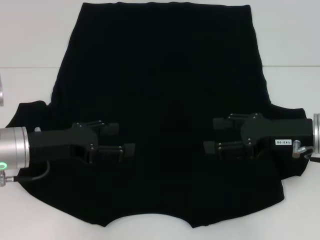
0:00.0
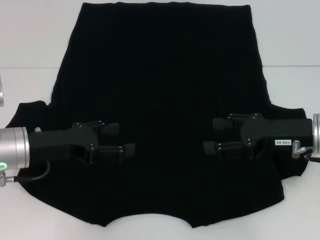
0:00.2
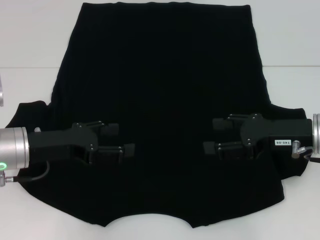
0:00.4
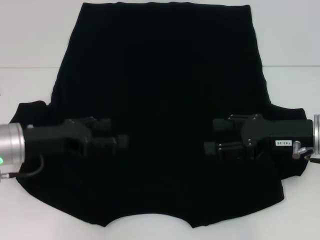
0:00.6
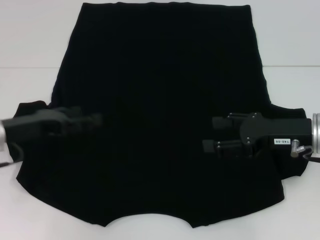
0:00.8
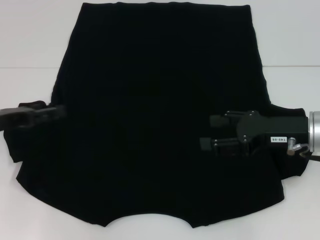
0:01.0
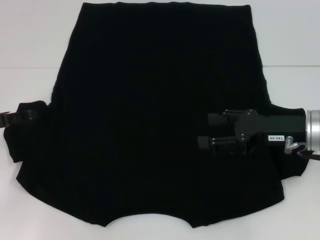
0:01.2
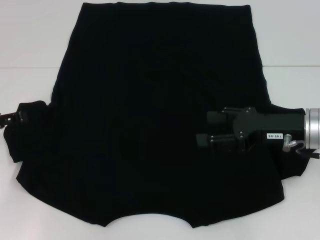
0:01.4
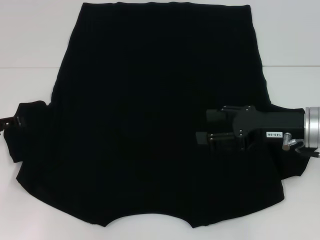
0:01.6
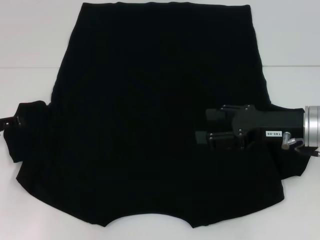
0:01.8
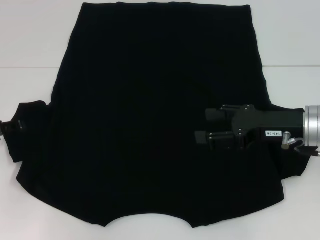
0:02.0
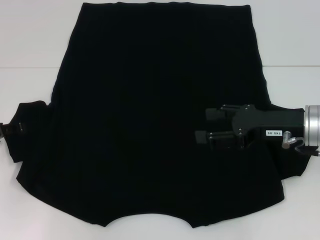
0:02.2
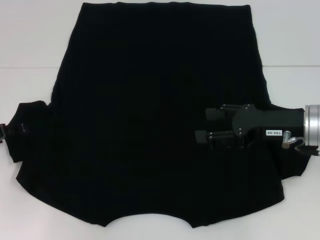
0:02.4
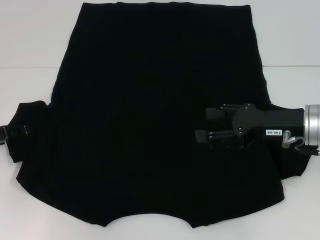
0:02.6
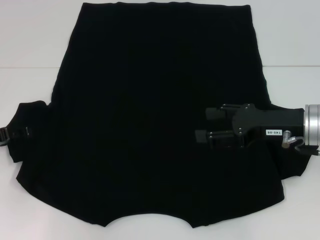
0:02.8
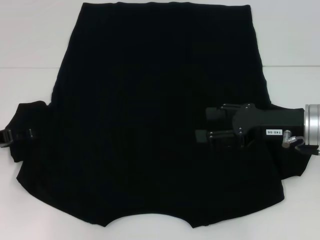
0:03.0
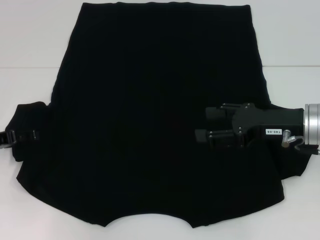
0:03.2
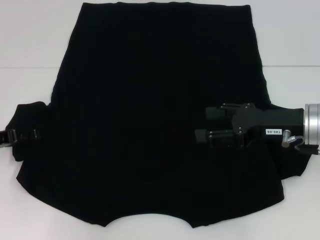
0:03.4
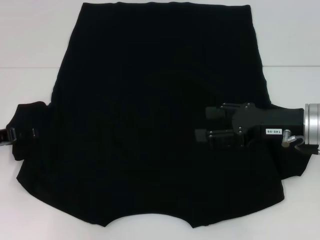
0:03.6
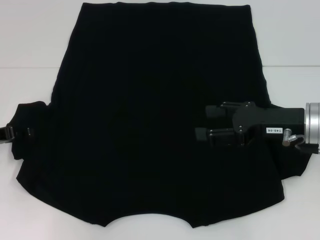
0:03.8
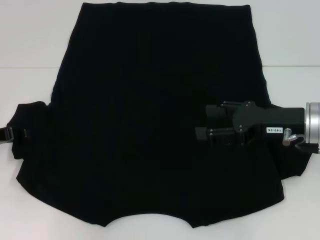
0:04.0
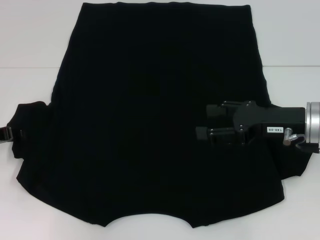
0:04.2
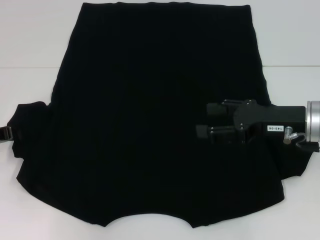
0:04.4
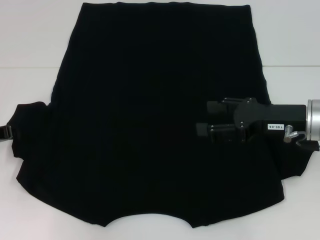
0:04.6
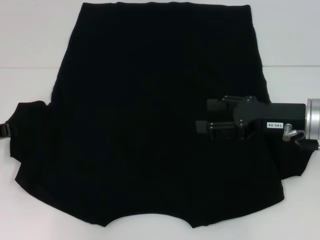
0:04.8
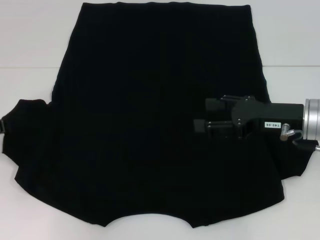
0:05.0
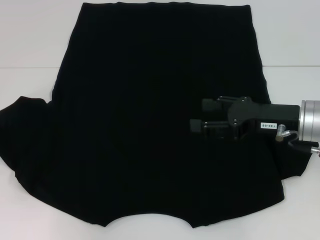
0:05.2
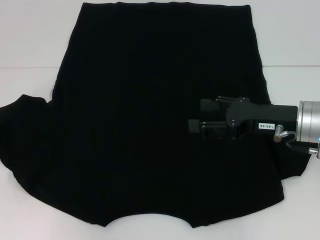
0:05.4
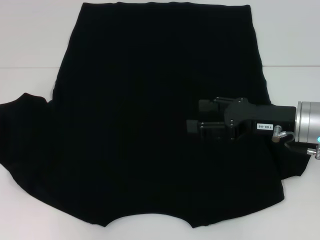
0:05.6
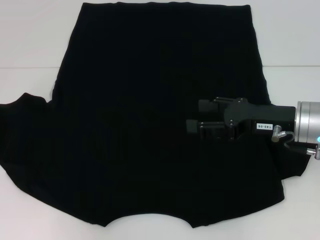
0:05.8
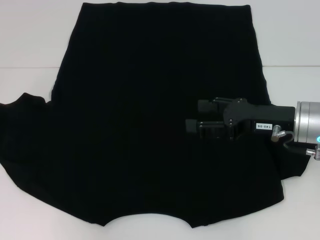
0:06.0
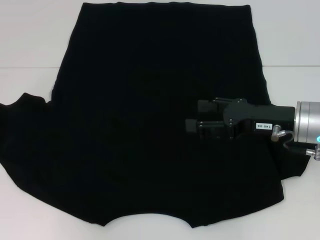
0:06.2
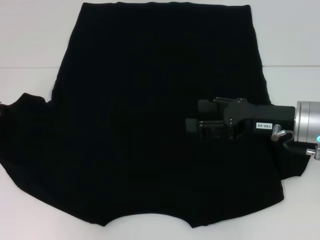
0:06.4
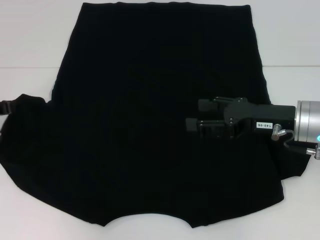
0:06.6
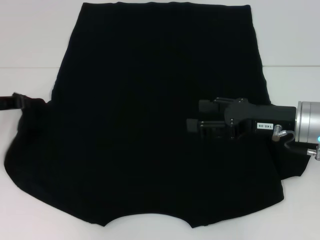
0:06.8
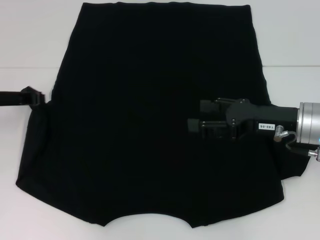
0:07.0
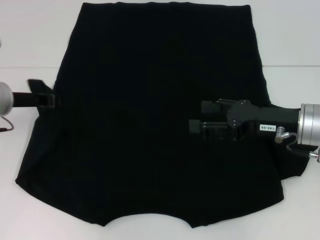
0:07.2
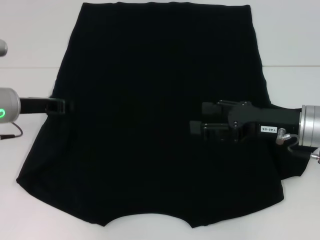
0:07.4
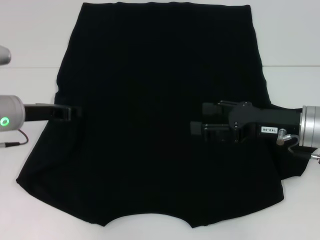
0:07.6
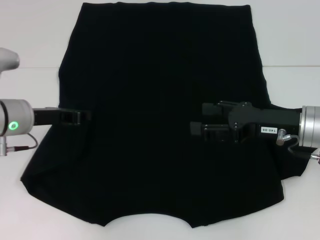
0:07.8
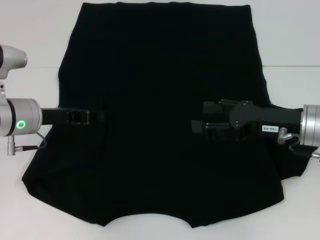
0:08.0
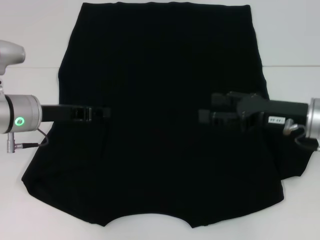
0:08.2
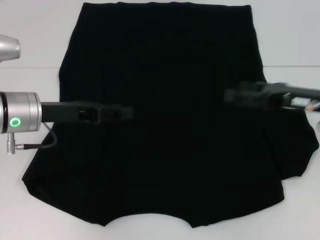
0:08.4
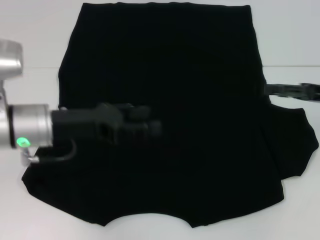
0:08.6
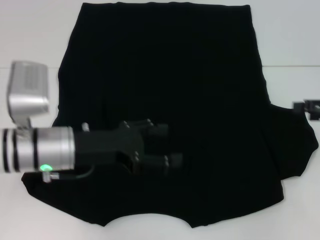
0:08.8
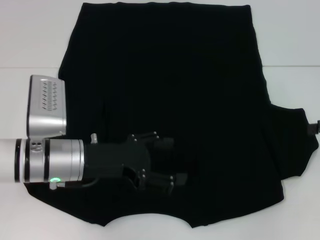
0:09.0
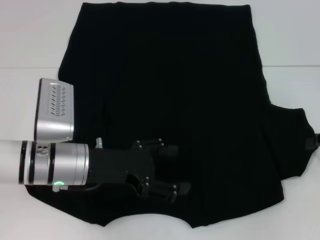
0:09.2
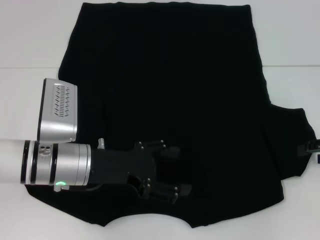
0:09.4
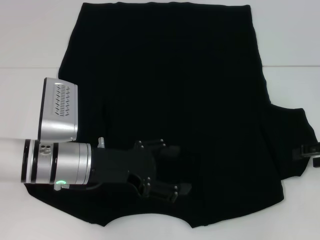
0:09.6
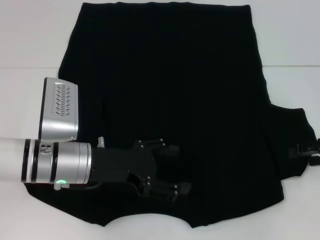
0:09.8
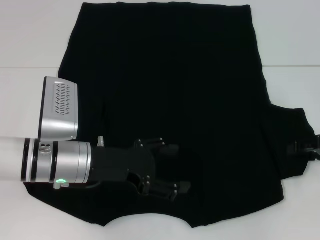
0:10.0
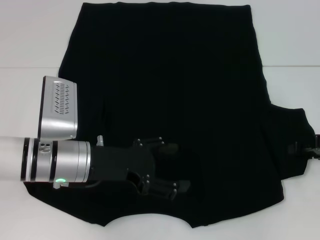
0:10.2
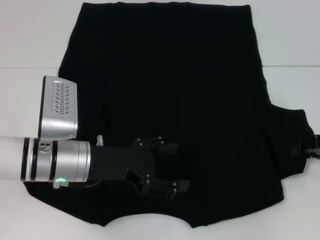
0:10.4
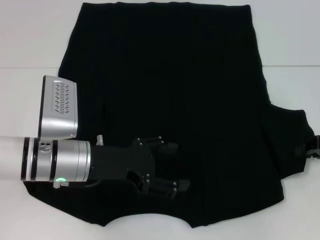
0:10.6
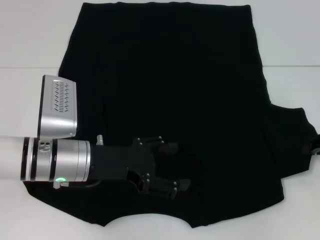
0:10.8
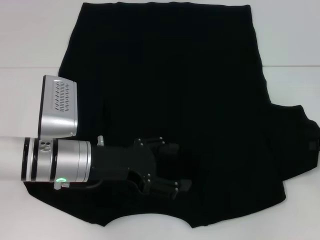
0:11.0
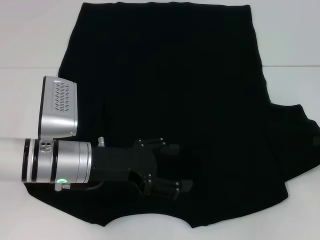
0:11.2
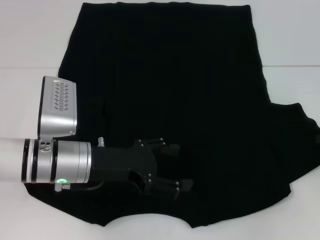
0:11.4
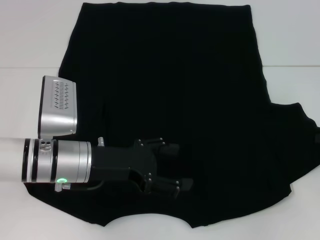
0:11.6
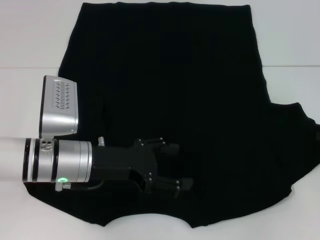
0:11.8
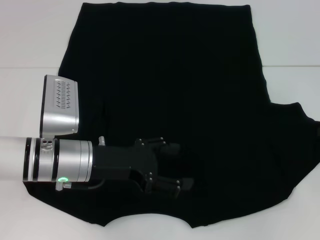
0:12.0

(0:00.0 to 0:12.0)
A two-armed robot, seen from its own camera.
Step, 0:00.0 - 0:08.2: Fold the bottom left sleeve with your left hand.
0:00.0 - 0:01.6: The left gripper is displaced to the left by some 10 cm.
0:01.6 - 0:03.0: The grippers stay close to where they were, moving slightly.
0:03.0 - 0:04.4: The left gripper closes up.
0:04.4 - 0:06.0: The grippers move only a little.
0:06.0 - 0:07.6: The left gripper shifts roughly 10 cm to the right.
0:07.6 - 0:09.0: The right gripper is displaced to the right by roughly 15 cm, while the left gripper shifts approximately 10 cm to the right and backward, and opens up.
0:09.0 - 0:10.4: The right gripper changes place by some 5 cm.
0:10.4 - 0:12.0: The right gripper closes.

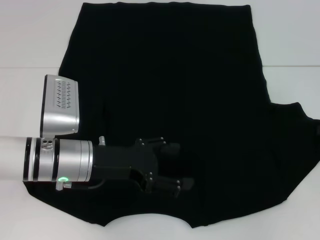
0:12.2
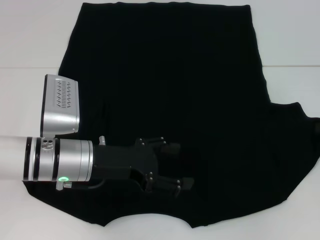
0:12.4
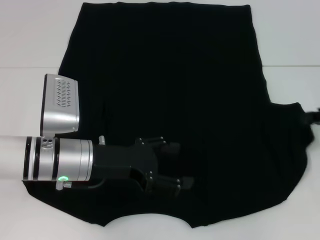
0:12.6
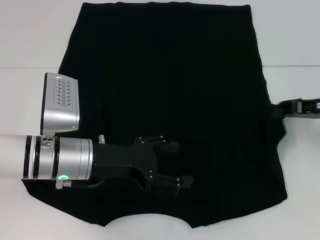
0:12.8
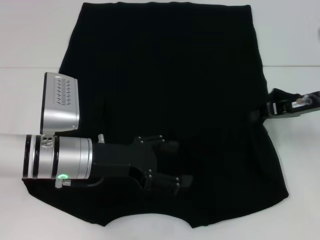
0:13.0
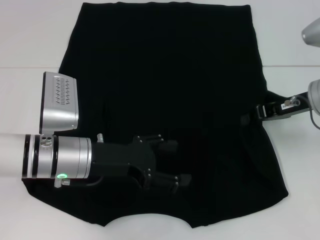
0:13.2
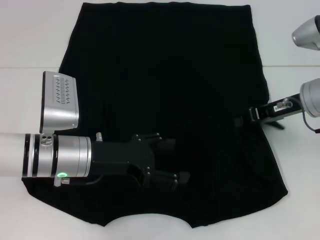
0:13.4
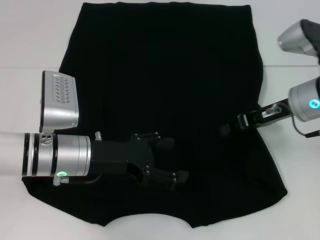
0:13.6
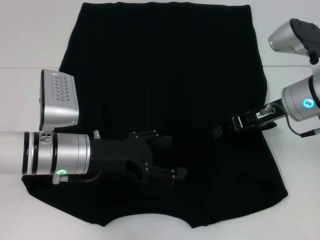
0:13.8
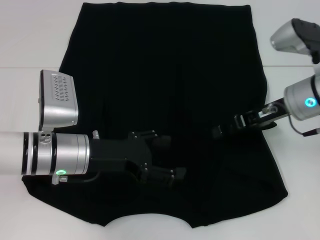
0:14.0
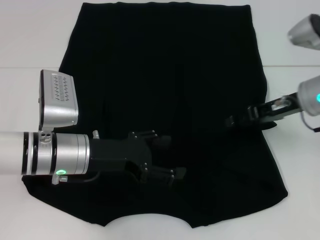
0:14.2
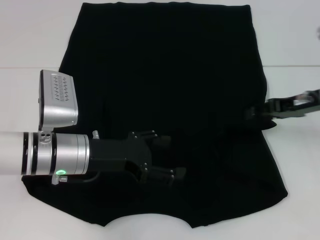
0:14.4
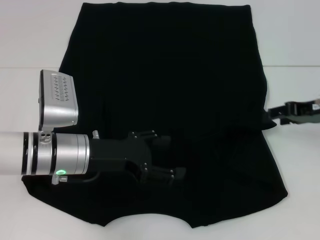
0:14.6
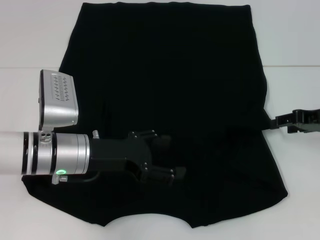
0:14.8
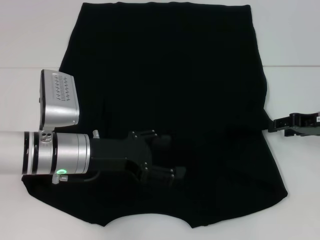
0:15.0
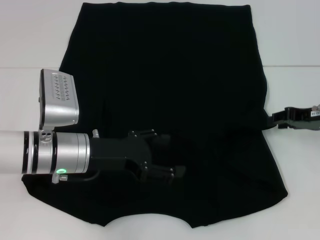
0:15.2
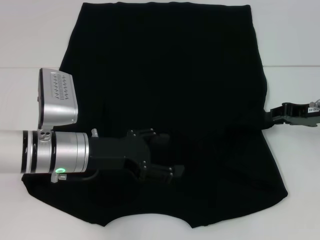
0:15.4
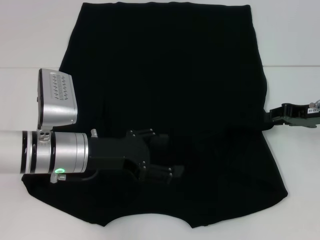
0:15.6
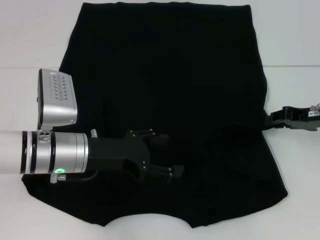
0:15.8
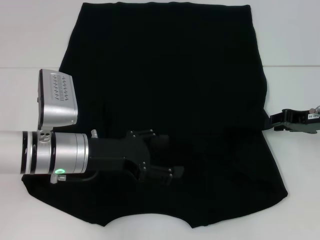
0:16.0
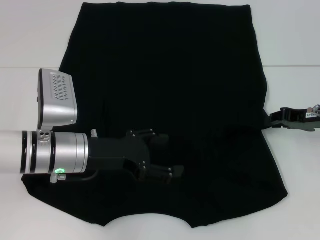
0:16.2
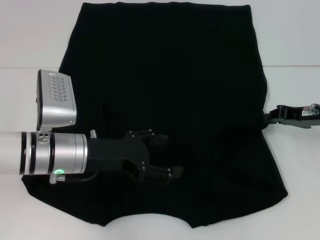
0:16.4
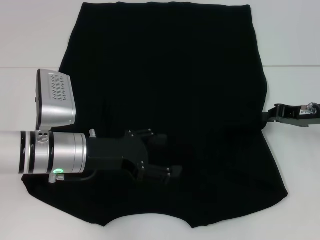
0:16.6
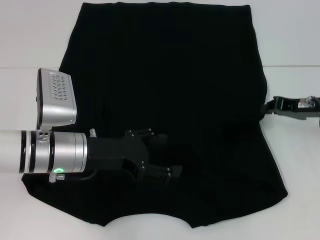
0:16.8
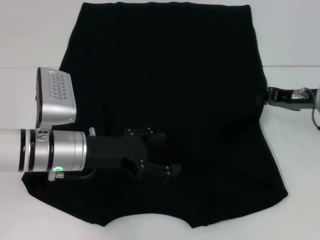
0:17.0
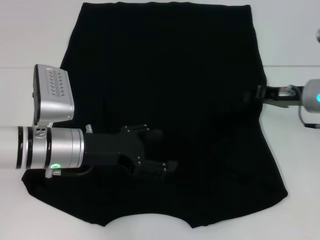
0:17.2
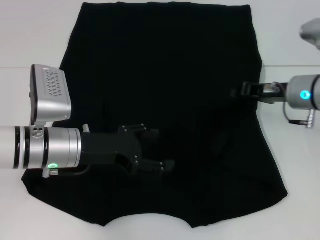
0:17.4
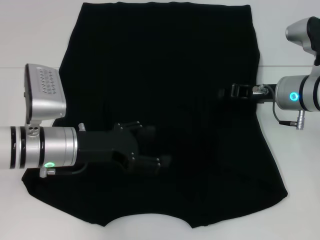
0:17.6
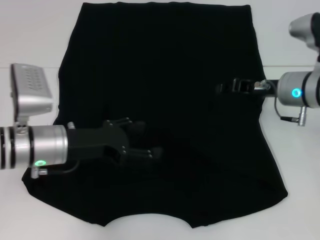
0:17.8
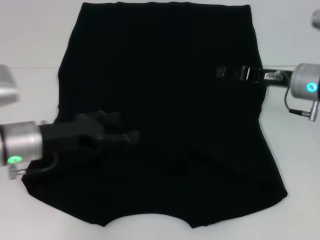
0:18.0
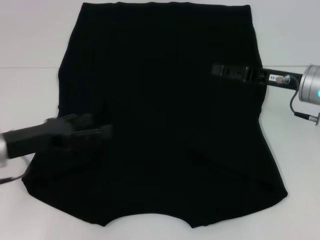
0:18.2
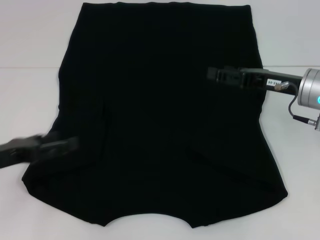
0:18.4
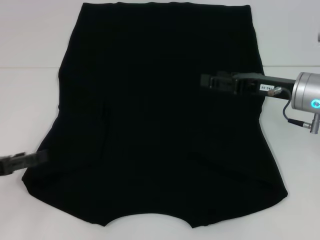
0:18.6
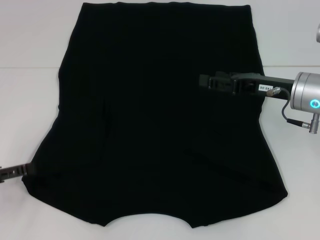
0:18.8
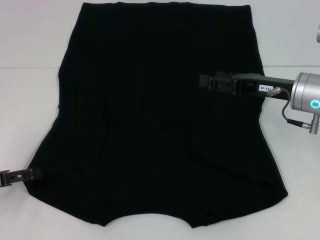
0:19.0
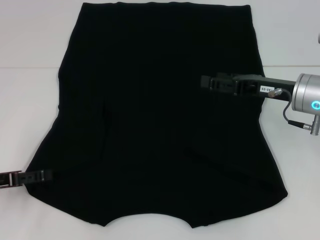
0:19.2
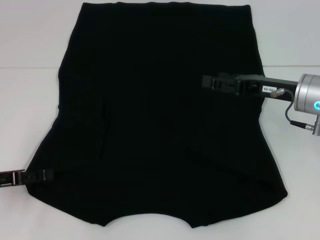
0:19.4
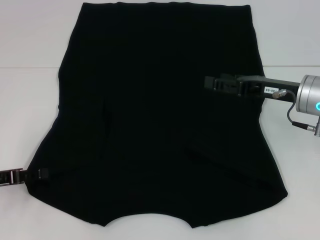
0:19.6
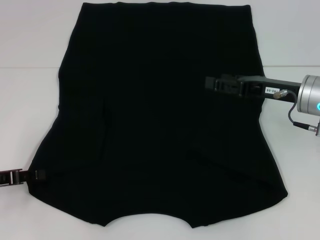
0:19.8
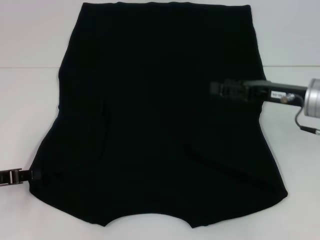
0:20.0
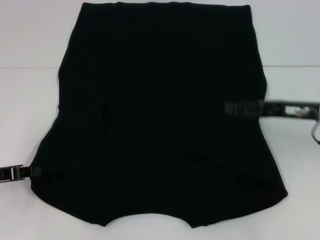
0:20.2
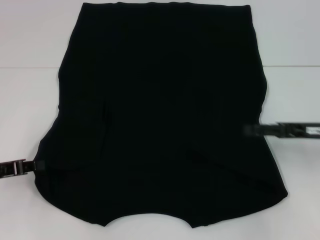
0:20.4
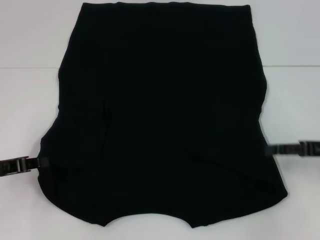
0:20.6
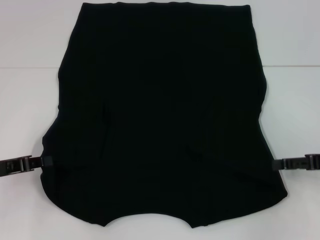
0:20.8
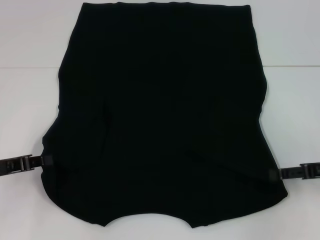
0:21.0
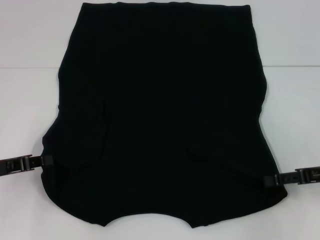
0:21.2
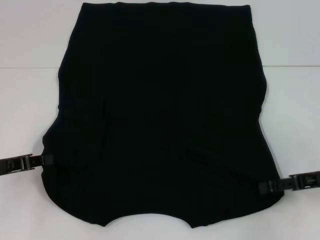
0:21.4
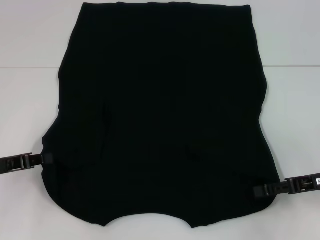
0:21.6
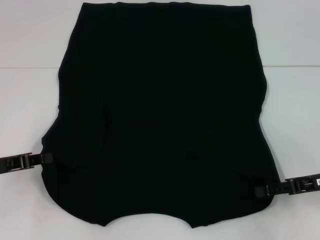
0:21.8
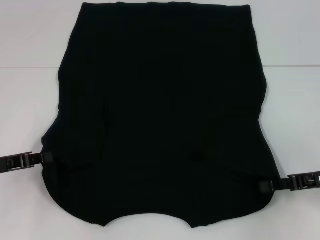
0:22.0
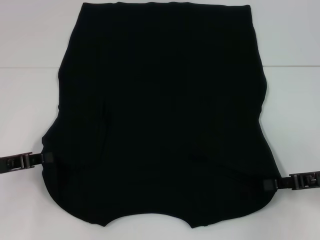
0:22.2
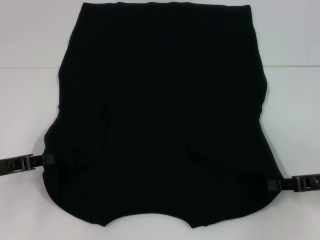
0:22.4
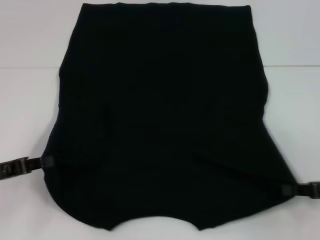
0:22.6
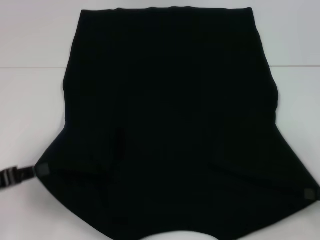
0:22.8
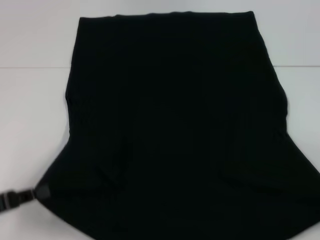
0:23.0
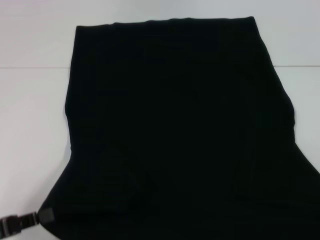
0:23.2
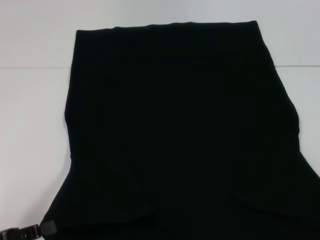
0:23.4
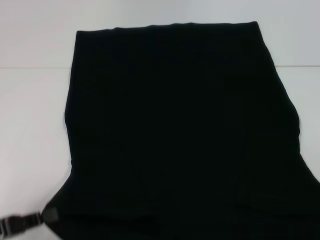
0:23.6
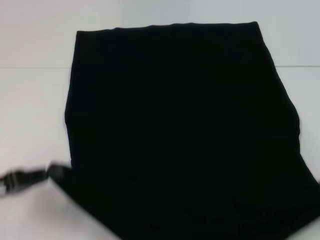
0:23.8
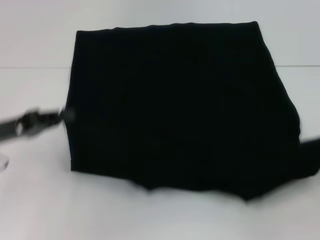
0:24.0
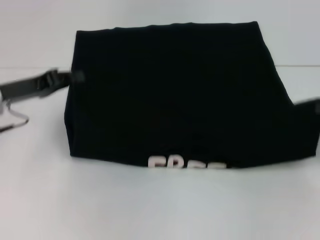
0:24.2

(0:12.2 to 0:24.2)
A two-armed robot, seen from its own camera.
Step, 0:12.2 - 0:17.8: Fold the bottom right sleeve with your right hand.
Step, 0:18.0 - 0:20.4: Grab the bottom left corner with your left hand.
Step, 0:20.6 - 0:22.4: Grab the bottom right corner with your right hand.
0:12.2 - 0:13.8: The right gripper goes about 15 cm to the left.
0:13.8 - 0:15.2: The right gripper travels to the right by about 10 cm, and opens up.
0:15.2 - 0:16.6: The right gripper closes up.
0:16.6 - 0:18.2: The right gripper changes place by about 5 cm, and opens its fingers, while the left gripper goes some 10 cm to the left.
0:18.2 - 0:19.8: The left gripper is displaced to the left by about 5 cm.
0:19.8 - 0:21.2: The left gripper closes its fingers. The right gripper is displaced to the right and backward by approximately 10 cm.
0:21.2 - 0:22.6: The right gripper closes.
0:22.6 - 0:24.2: The left gripper moves forward, approximately 10 cm; the right gripper goes about 5 cm upward, and travels backward and back again, some 10 cm each way.
